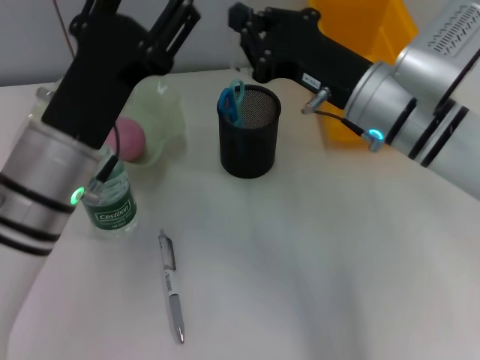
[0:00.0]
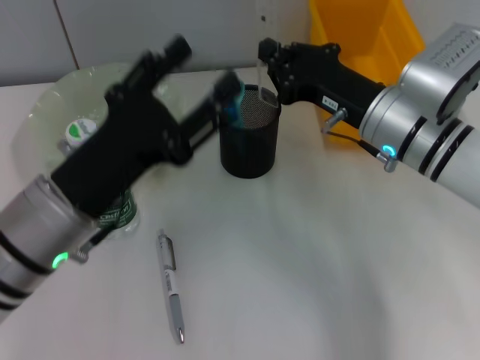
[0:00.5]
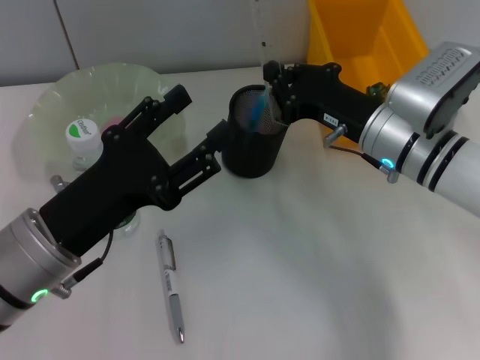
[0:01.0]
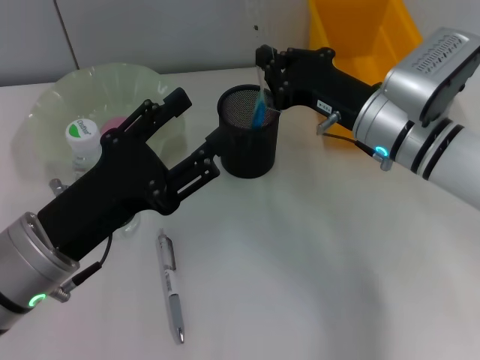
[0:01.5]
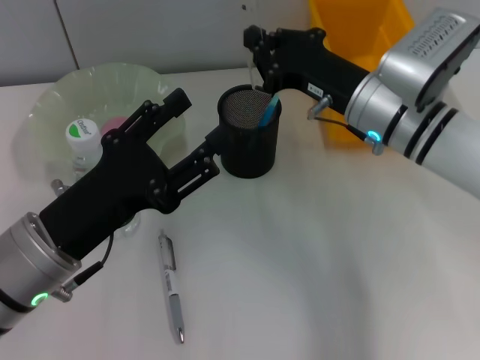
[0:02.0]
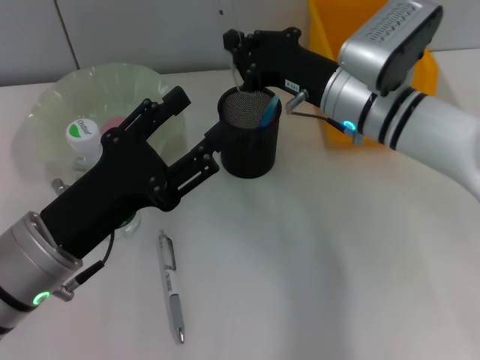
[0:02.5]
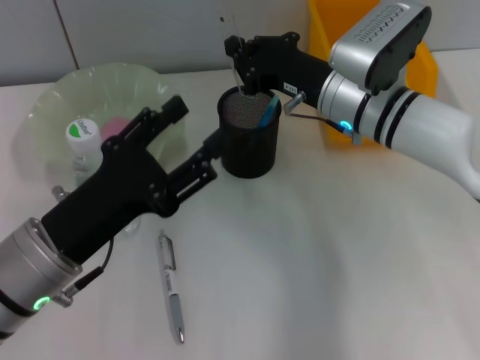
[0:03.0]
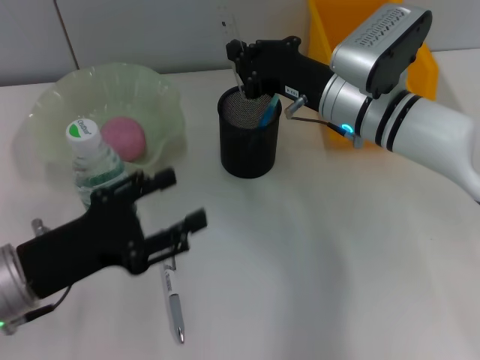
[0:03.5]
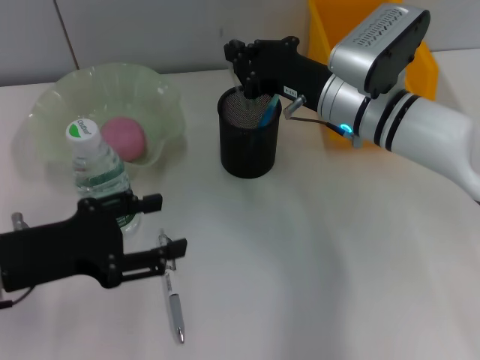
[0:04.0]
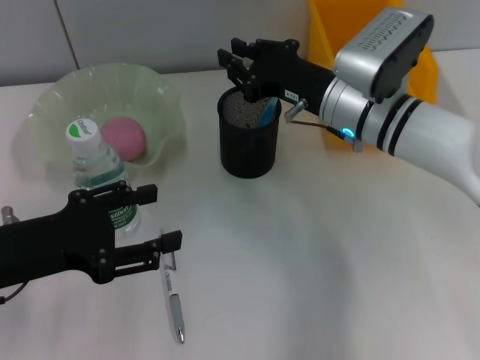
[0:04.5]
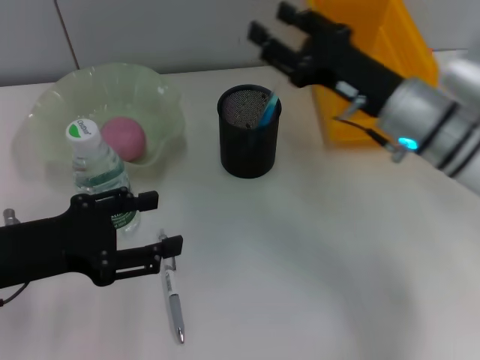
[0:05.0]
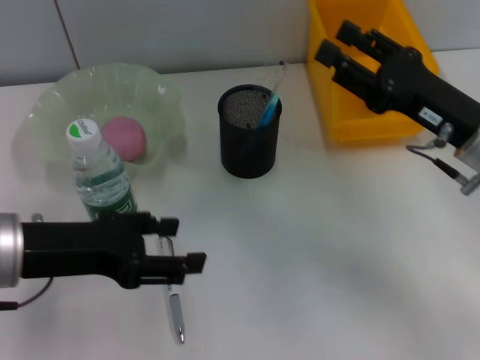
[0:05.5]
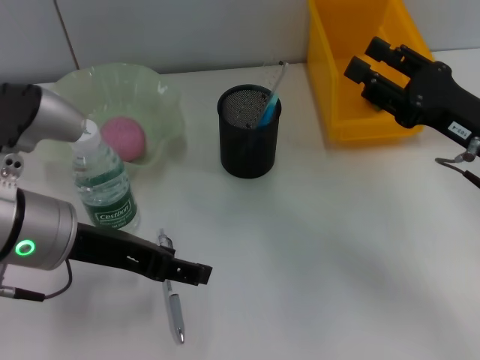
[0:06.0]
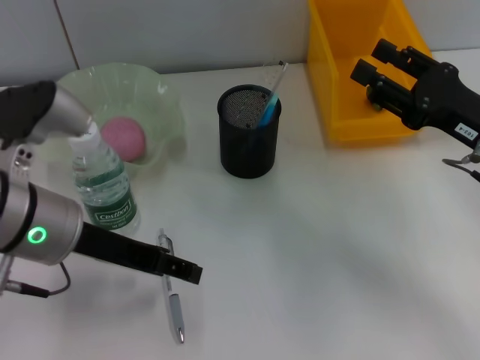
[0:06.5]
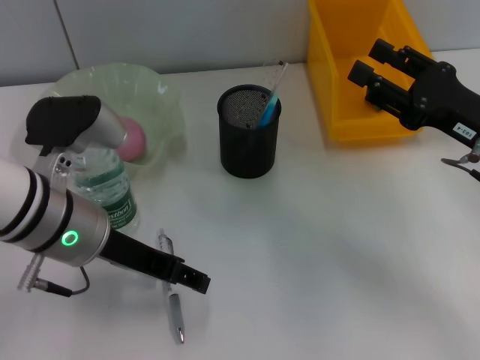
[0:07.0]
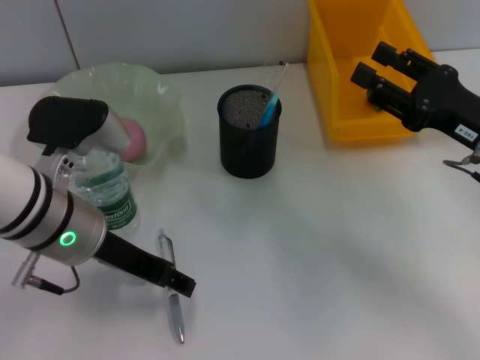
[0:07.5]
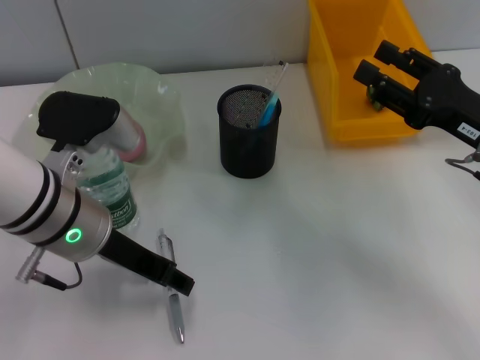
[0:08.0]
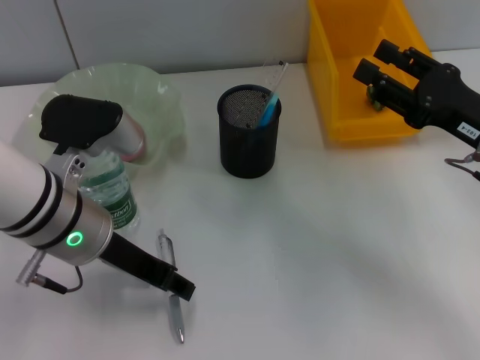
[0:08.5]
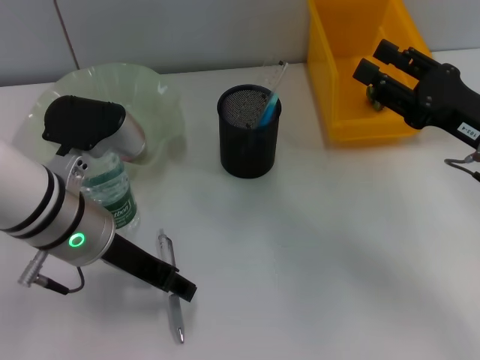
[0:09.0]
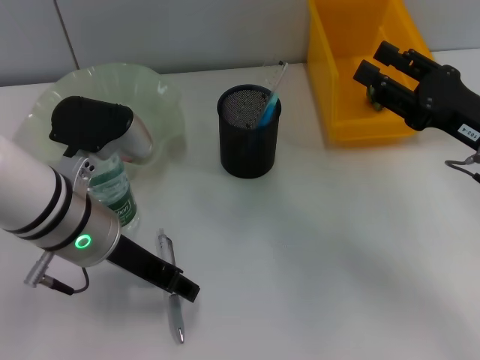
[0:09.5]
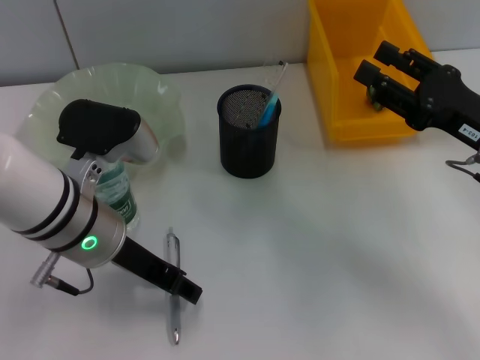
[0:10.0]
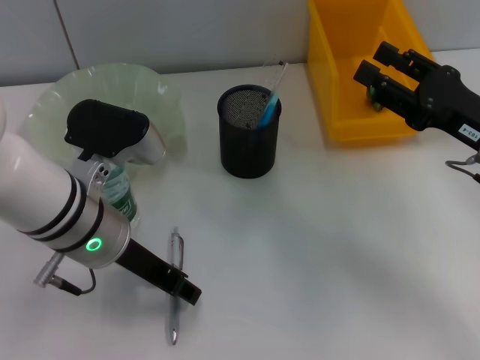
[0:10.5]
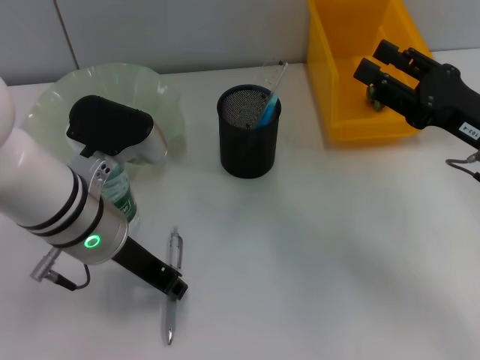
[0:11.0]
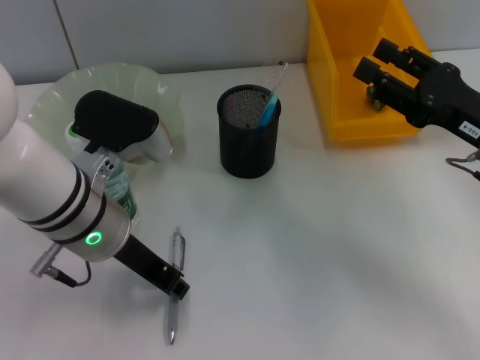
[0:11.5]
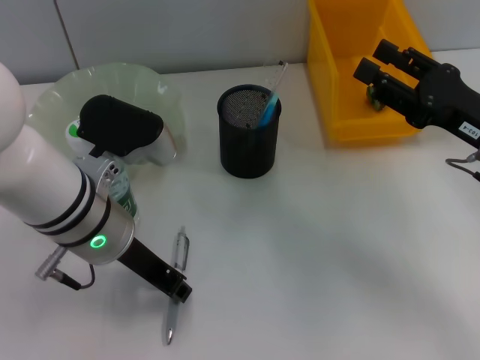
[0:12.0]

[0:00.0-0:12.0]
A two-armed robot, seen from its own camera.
Step, 0:00.0 to 0:04.0: Place the ruler into the pen holder with the right hand.
0:00.0 to 0:02.0: The left gripper moves about 5 cm.
0:02.0 to 0:04.0: The left gripper goes roughly 5 cm to the left.
0:04.0 to 0:06.0: The left gripper goes roughly 5 cm to the right; the right gripper moves to the right and backward, roughly 15 cm, and opens up.
0:06.0 to 0:08.0: There are only small adjustments of the grippers.
0:08.0 to 0:10.0: Both grippers stay put.
0:10.0 to 0:12.0: The left gripper closes.

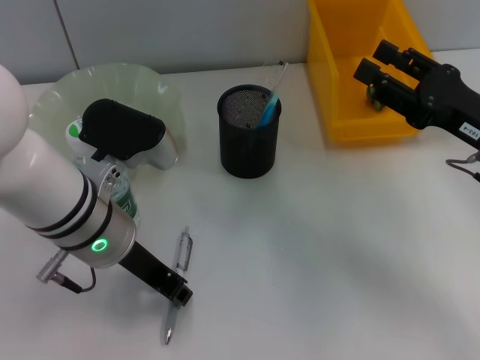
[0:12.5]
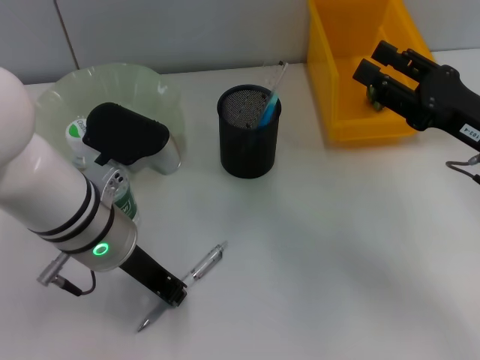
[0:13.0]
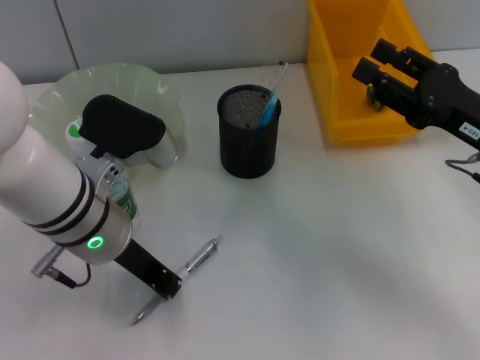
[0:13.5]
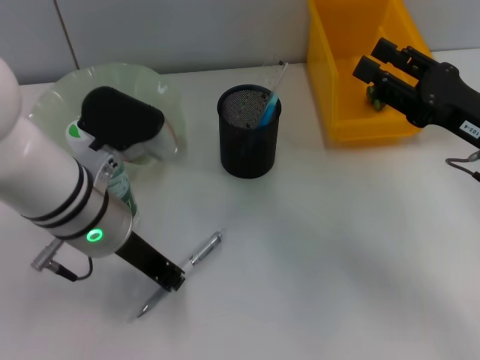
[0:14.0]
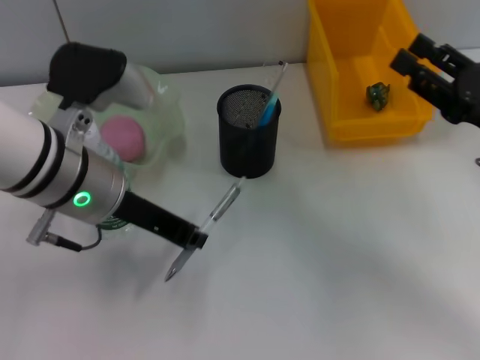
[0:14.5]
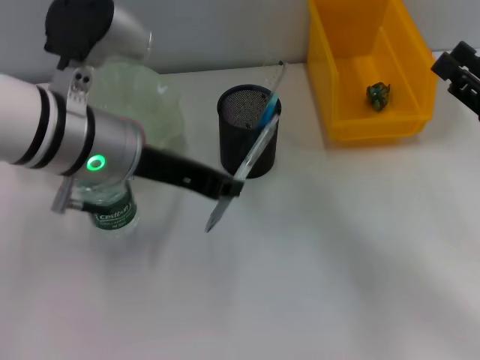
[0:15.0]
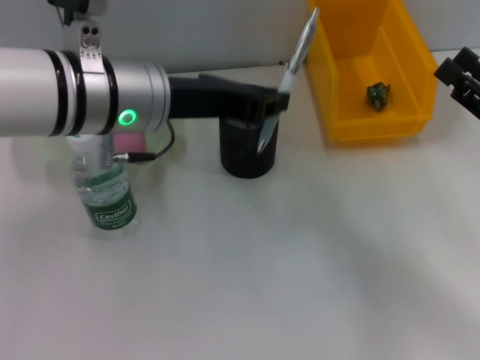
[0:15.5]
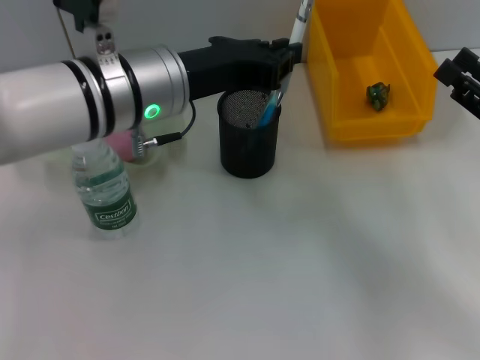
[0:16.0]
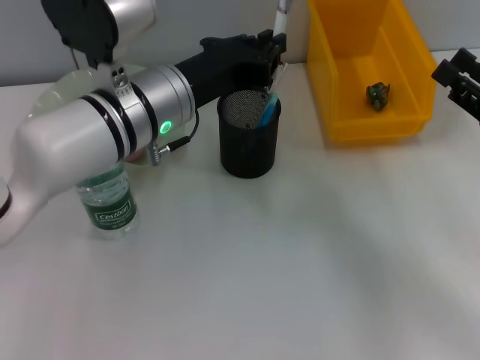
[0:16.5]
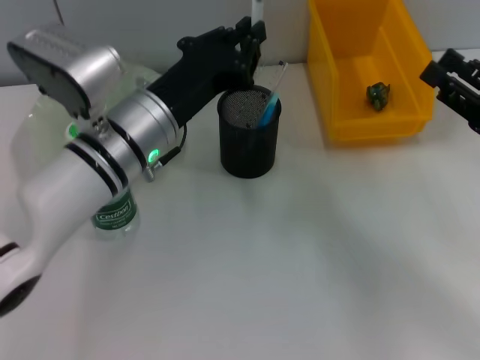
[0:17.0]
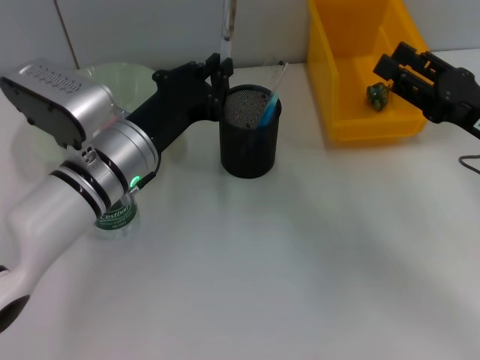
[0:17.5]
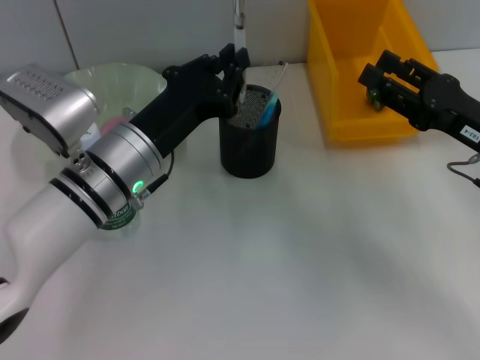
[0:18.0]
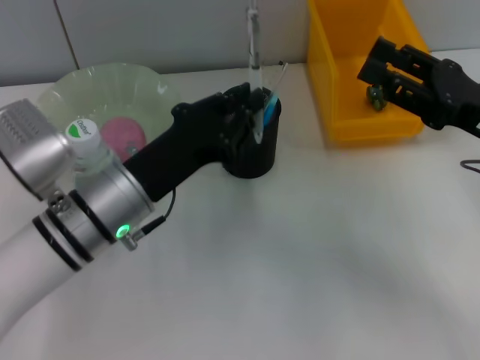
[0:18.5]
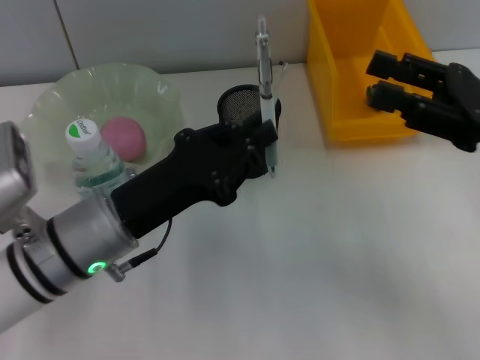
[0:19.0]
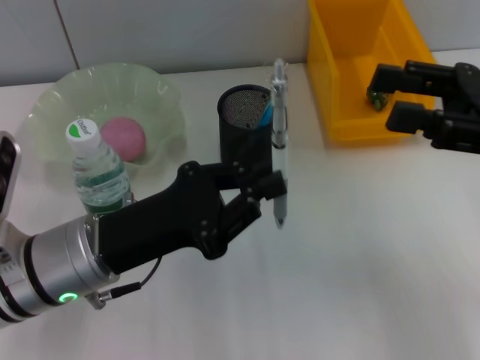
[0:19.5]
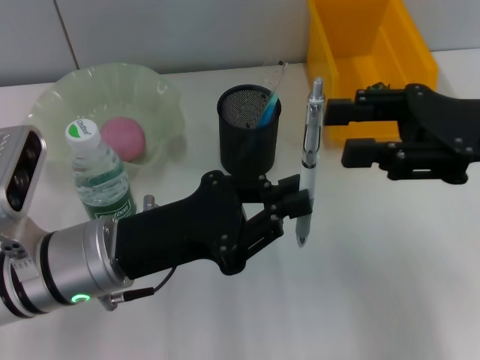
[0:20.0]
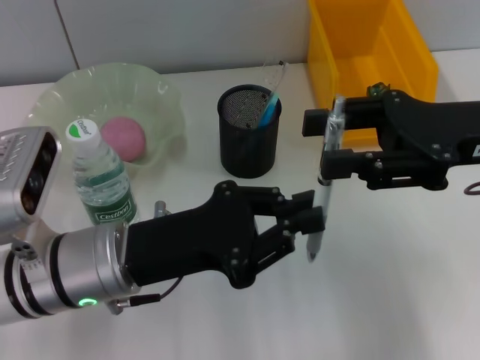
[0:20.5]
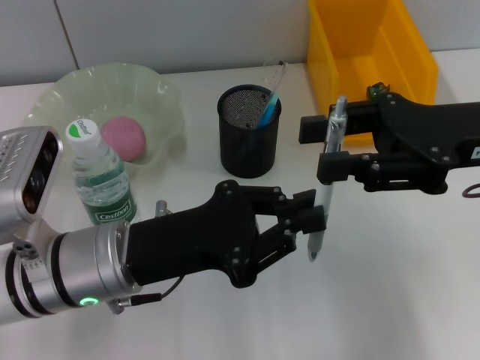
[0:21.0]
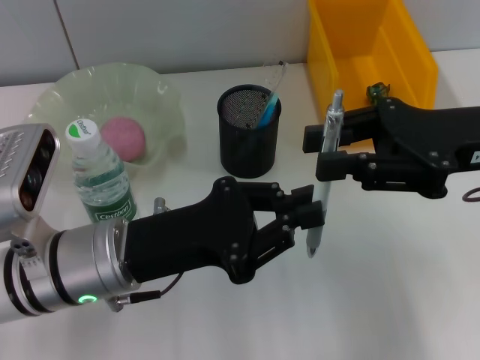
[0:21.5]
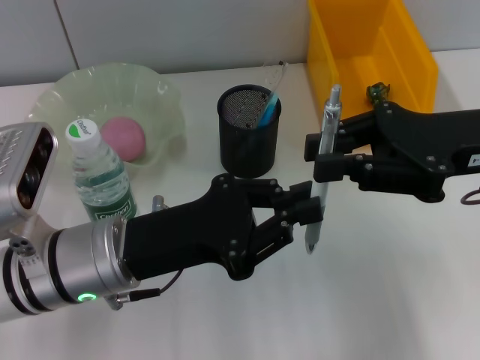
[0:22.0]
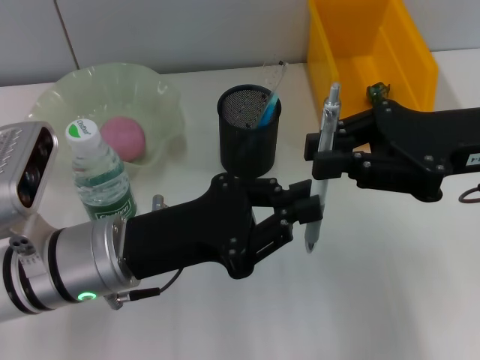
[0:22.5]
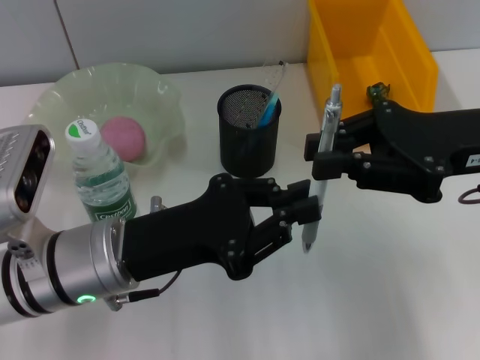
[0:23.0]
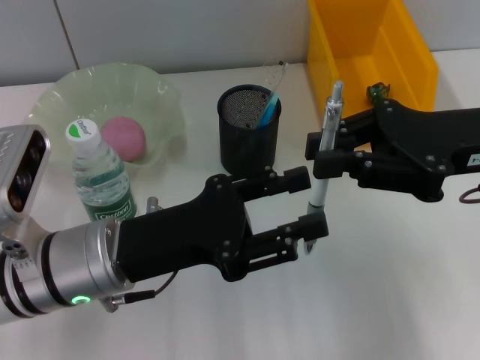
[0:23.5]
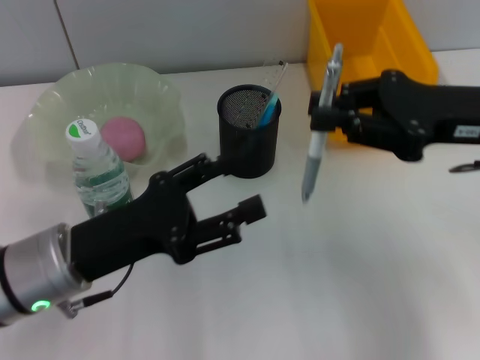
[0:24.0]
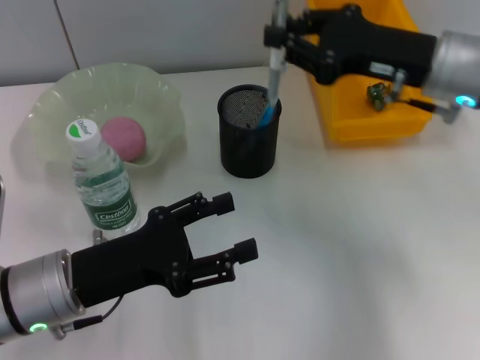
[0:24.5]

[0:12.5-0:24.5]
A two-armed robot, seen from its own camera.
Step, 0:13.5 to 0:23.0: Pass the gray spring-action pen from the left hand to the right hand.
0:12.5 to 0:14.5: The left gripper closes its fingers.
0:14.5 to 0:16.5: The left gripper travels to the right by some 5 cm.
0:16.5 to 0:18.5: The left gripper is displaced downward and backward by roughly 10 cm; the right gripper changes place by about 5 cm.
0:18.5 to 0:20.5: The right gripper is displaced upward by some 5 cm.
0:20.5 to 0:22.5: The right gripper closes up.
0:22.5 to 0:24.5: The left gripper is displaced to the left by about 5 cm, and opens, while the right gripper heads forward, covering some 5 cm.

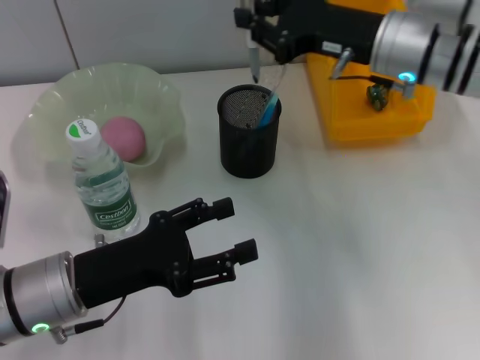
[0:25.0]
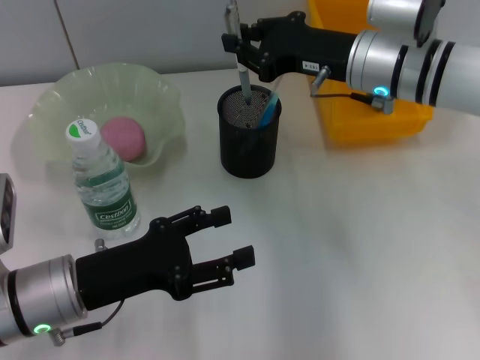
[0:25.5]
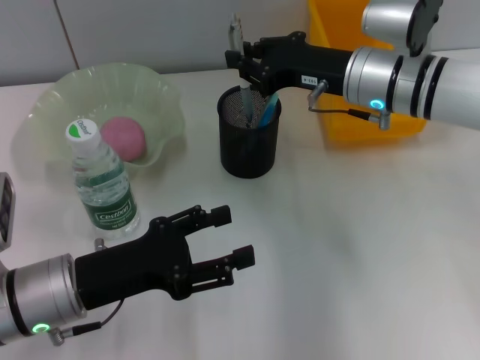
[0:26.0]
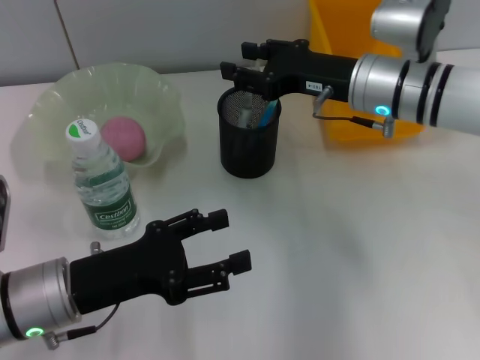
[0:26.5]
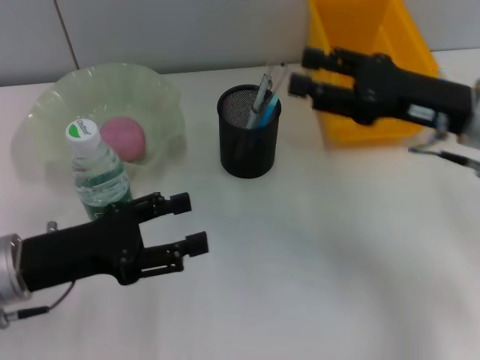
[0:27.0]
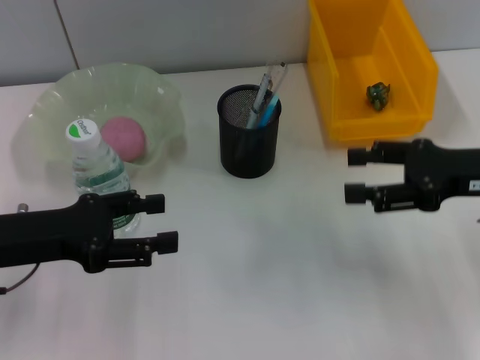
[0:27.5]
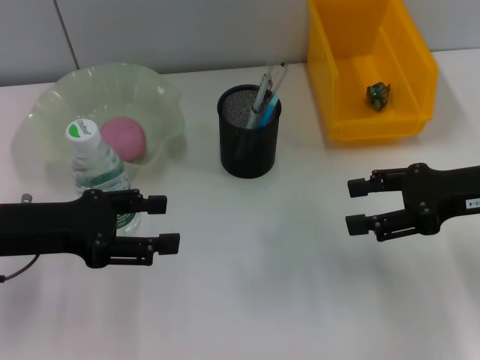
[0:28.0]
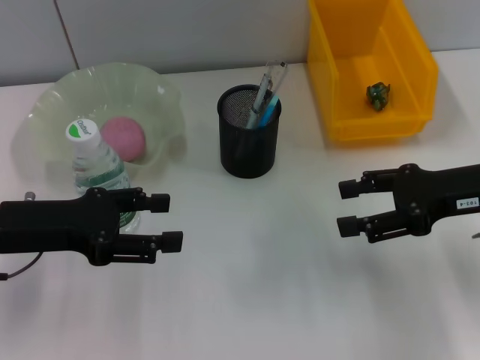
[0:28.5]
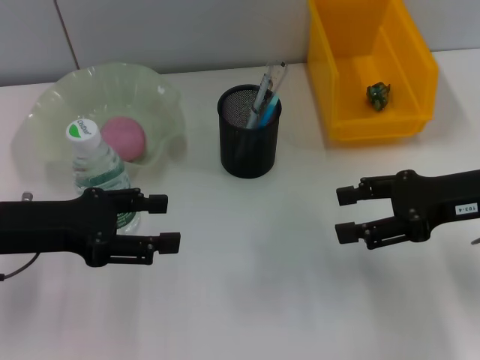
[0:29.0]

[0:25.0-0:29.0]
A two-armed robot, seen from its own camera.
0:25.0 to 0:27.0: The right gripper moves backward and to the right, approximately 10 cm, and opens its fingers.
0:27.0 to 0:29.0: The left gripper moves approximately 5 cm. The right gripper ends up about 5 cm from where it was.
